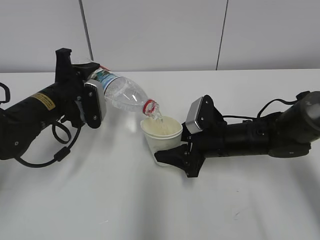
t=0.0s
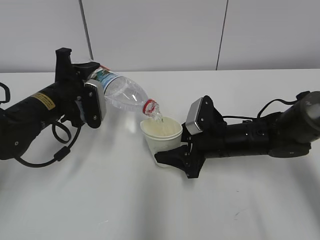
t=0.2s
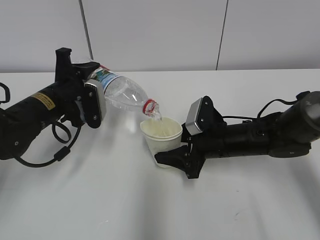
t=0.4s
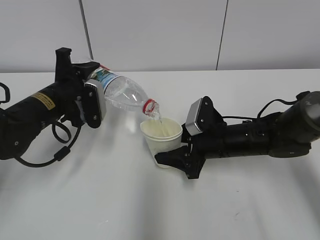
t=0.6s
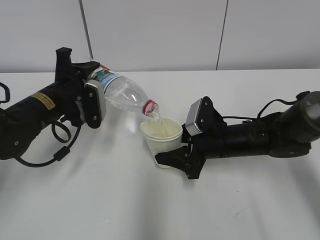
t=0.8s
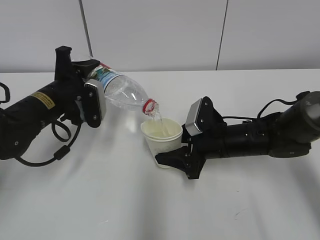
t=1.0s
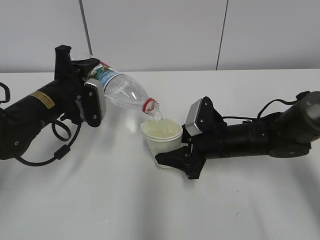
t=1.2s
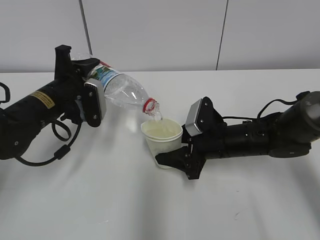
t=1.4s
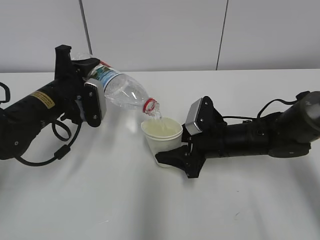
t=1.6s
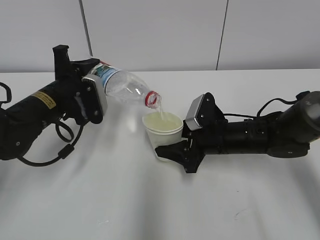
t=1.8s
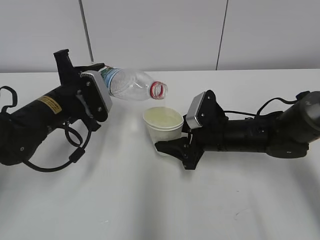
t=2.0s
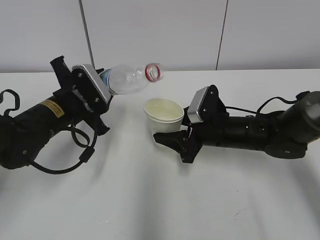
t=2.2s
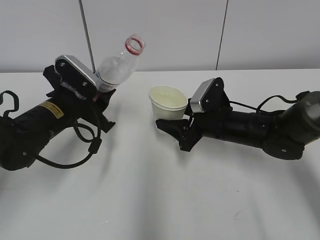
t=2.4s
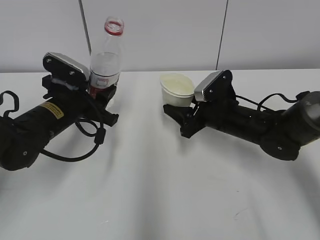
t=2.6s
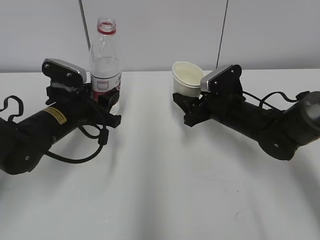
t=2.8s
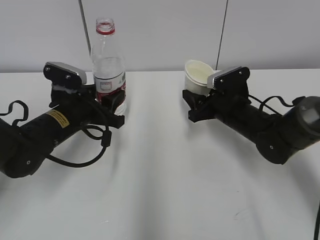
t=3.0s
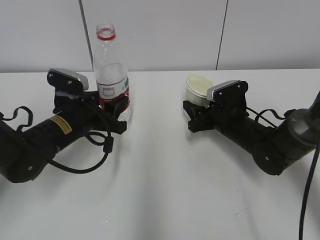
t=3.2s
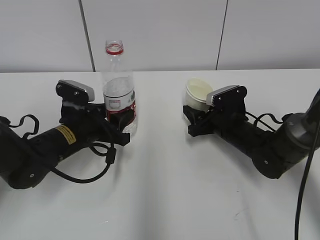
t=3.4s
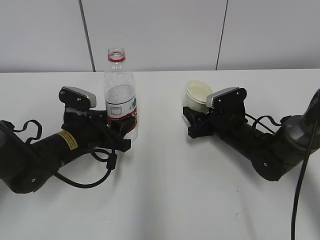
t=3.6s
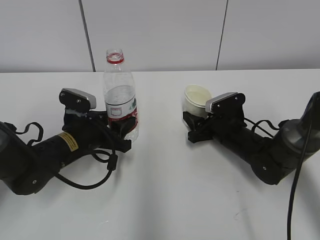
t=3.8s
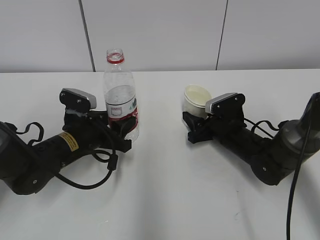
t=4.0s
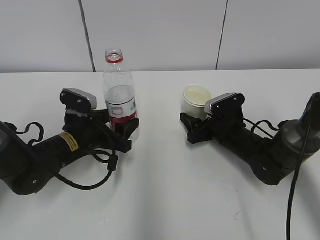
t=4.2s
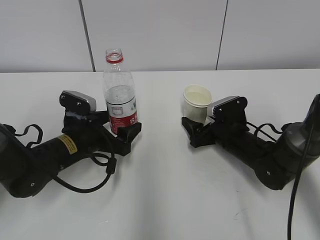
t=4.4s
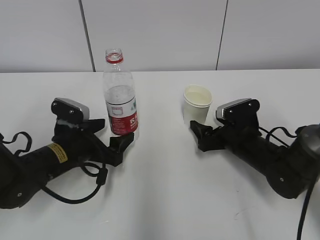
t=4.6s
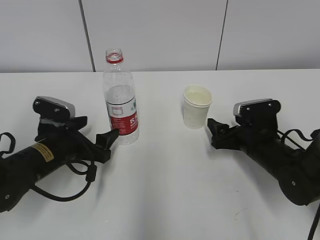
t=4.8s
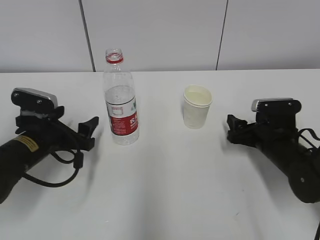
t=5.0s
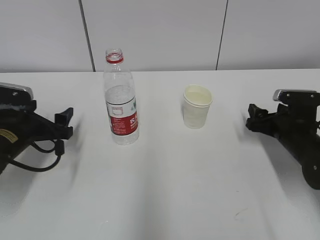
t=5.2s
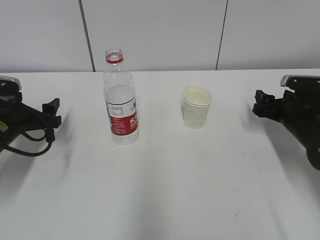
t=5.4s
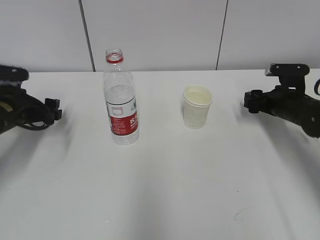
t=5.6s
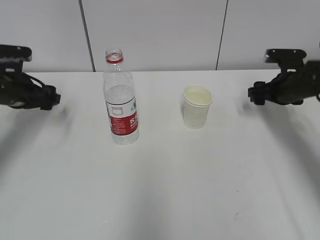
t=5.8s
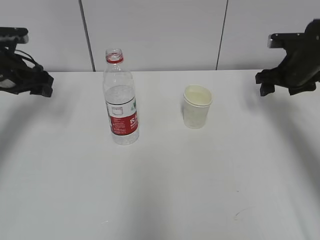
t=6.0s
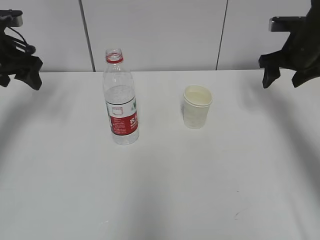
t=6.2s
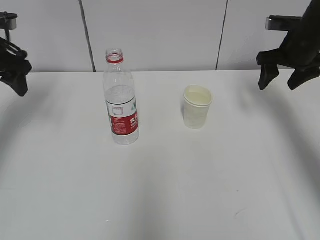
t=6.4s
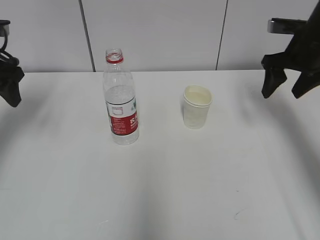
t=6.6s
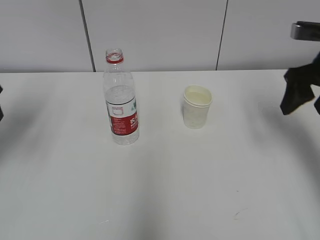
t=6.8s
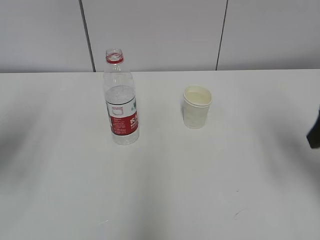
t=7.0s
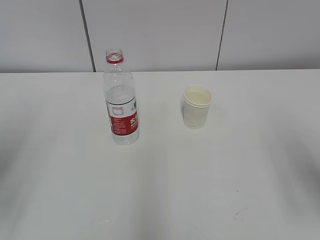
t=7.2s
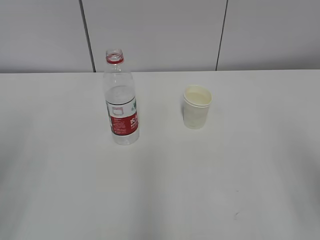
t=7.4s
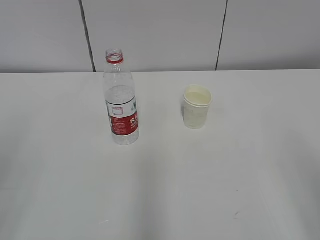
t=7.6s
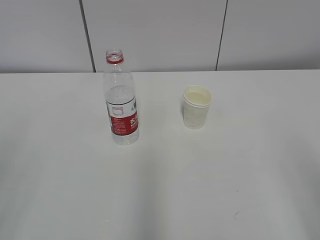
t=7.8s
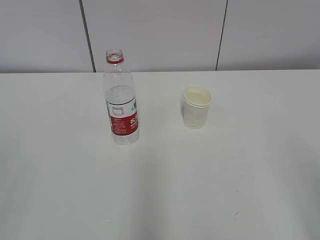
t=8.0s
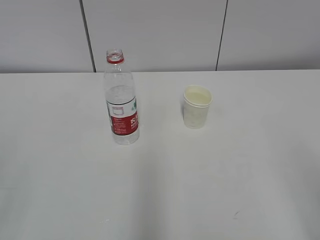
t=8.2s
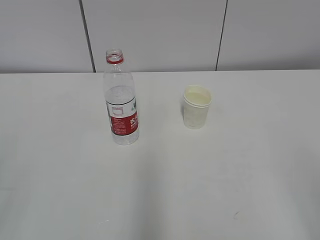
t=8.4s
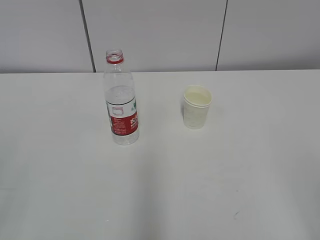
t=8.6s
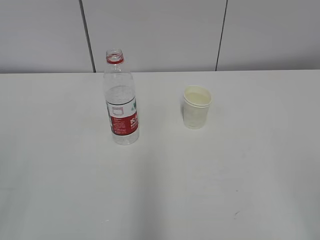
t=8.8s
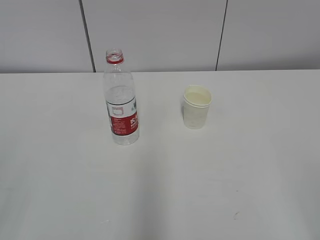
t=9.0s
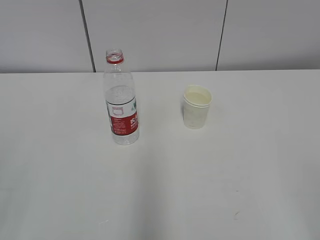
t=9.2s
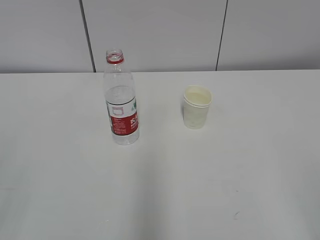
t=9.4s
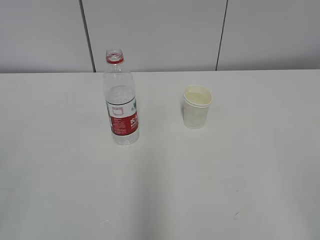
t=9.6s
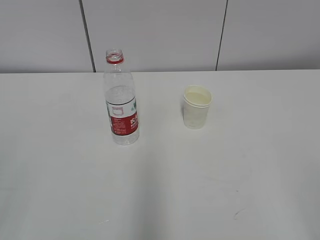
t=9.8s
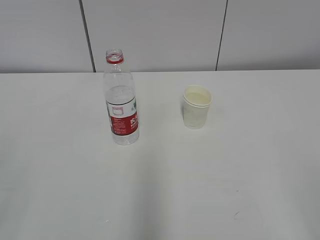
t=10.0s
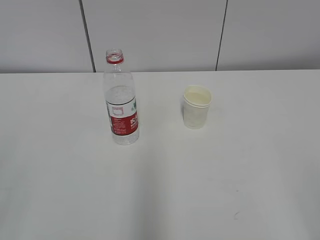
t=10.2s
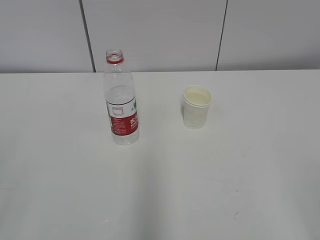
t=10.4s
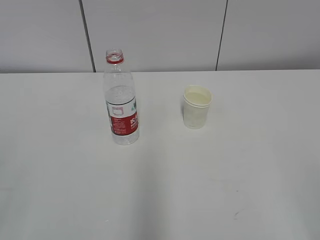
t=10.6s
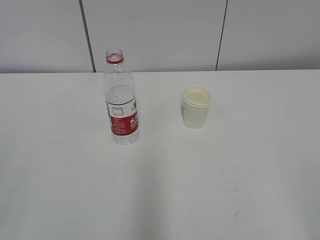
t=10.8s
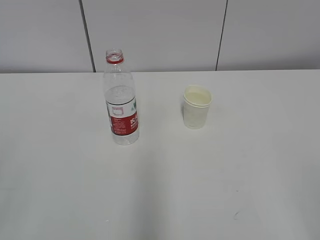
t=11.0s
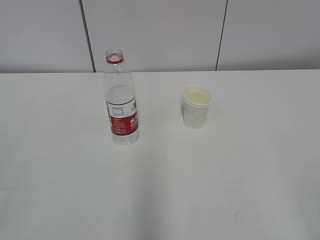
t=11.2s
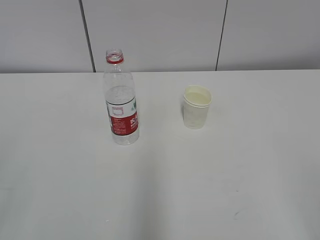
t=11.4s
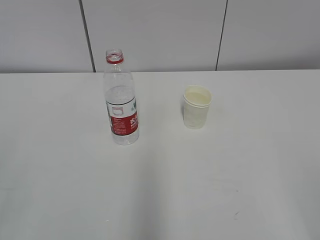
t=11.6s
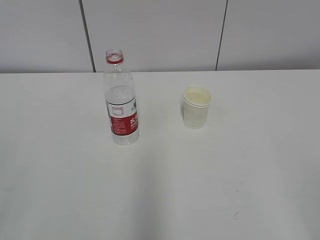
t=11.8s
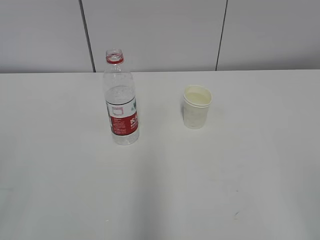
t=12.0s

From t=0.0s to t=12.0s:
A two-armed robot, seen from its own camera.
From t=0.0s to t=1.6s: The two grippers keep their place.
From t=1.6s to t=3.0s: The right gripper moves some 5 cm.
From t=3.0s to t=4.4s: The two grippers go roughly 5 cm downward. The left gripper opens; the right gripper opens.
From t=4.4s to t=6.0s: The left gripper moves to the left, upward and forward, about 20 cm; the right gripper travels upward, to the right and forward by approximately 20 cm.
From t=6.0s to t=7.6s: Both grippers move backward, some 35 cm.
From t=9.0s to t=12.0s: Both grippers stay put.
